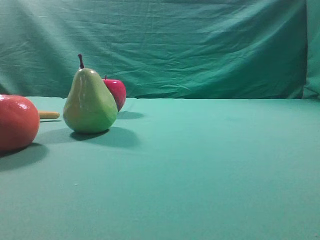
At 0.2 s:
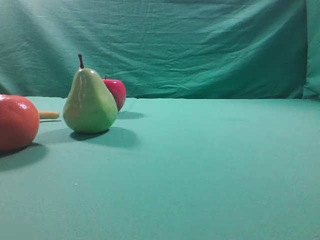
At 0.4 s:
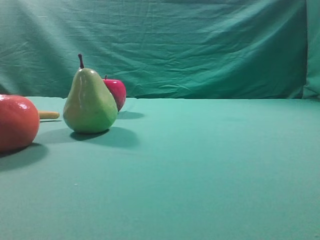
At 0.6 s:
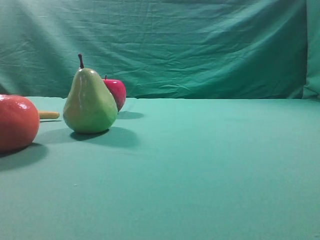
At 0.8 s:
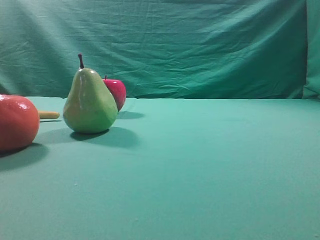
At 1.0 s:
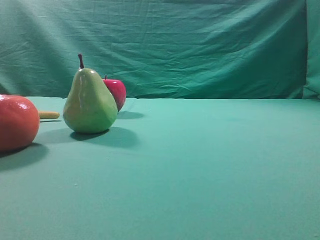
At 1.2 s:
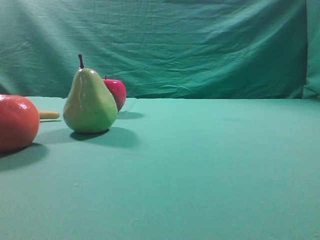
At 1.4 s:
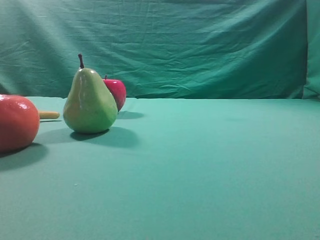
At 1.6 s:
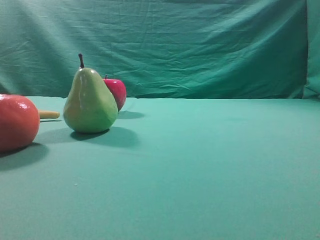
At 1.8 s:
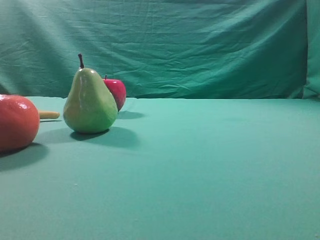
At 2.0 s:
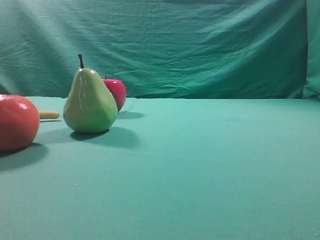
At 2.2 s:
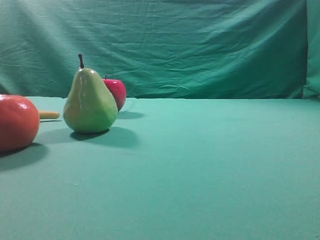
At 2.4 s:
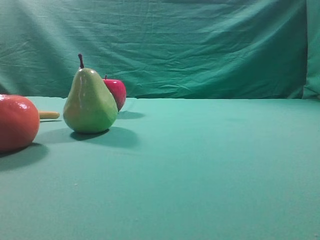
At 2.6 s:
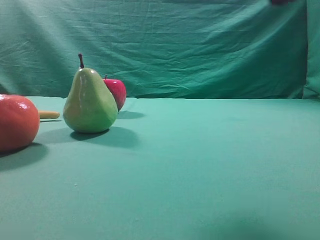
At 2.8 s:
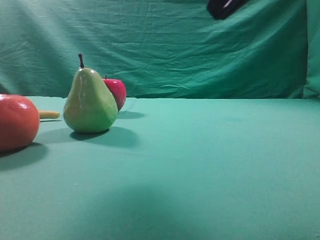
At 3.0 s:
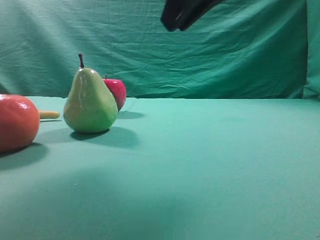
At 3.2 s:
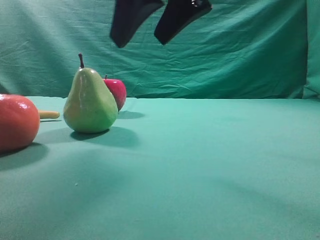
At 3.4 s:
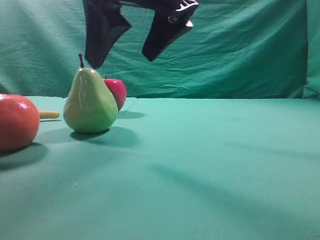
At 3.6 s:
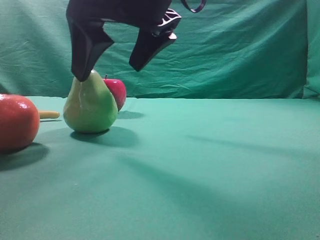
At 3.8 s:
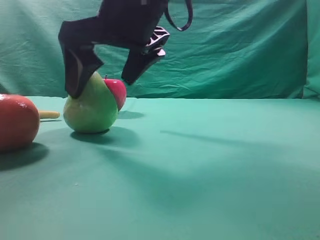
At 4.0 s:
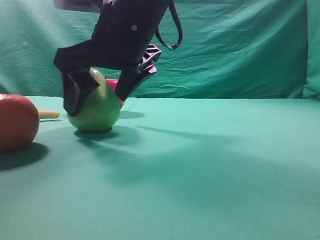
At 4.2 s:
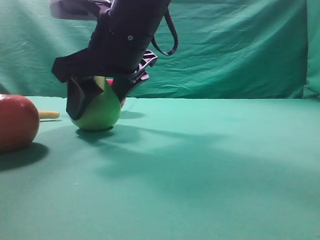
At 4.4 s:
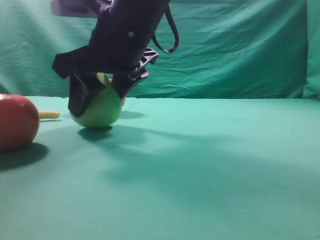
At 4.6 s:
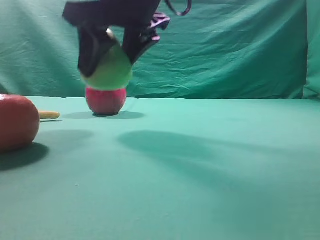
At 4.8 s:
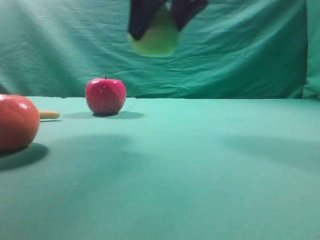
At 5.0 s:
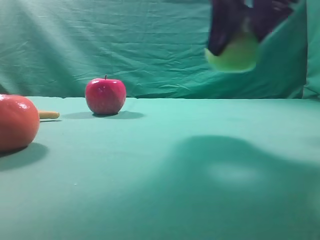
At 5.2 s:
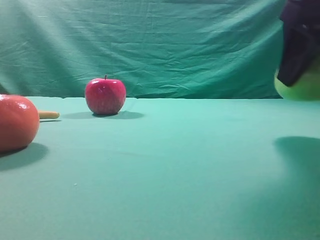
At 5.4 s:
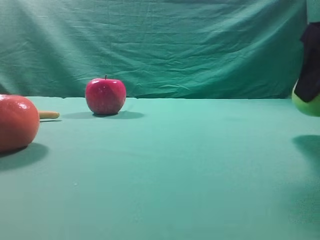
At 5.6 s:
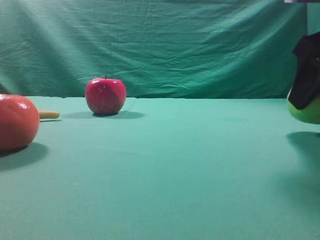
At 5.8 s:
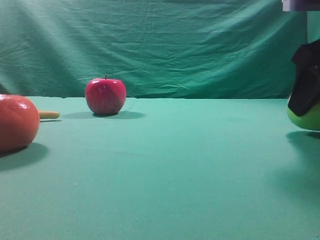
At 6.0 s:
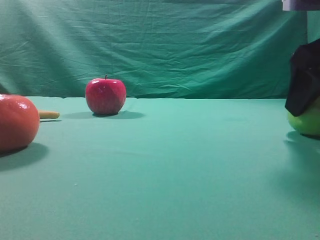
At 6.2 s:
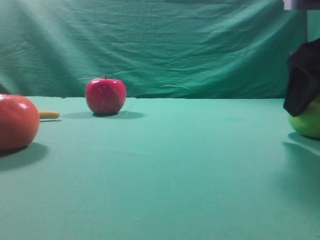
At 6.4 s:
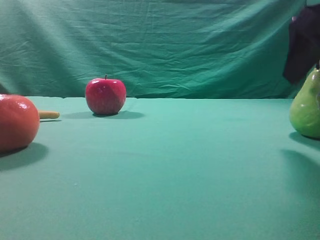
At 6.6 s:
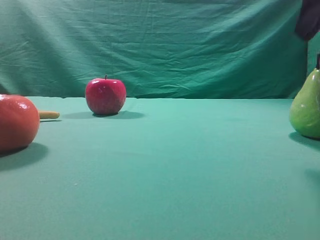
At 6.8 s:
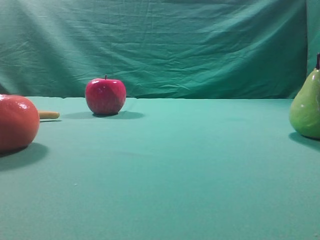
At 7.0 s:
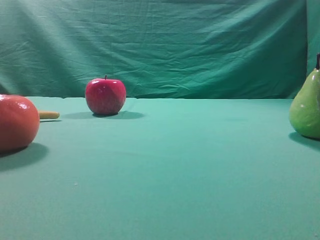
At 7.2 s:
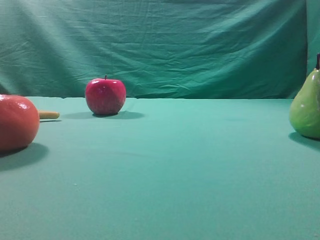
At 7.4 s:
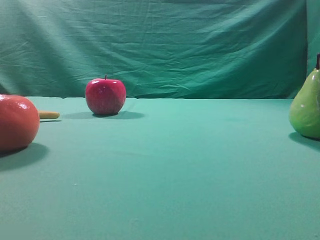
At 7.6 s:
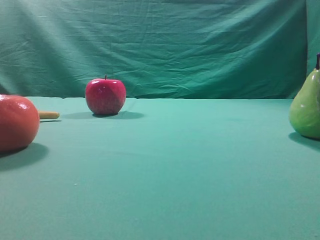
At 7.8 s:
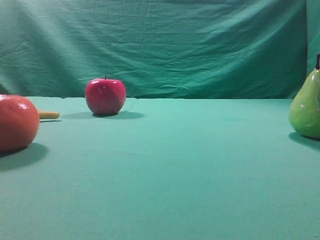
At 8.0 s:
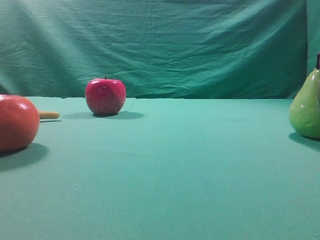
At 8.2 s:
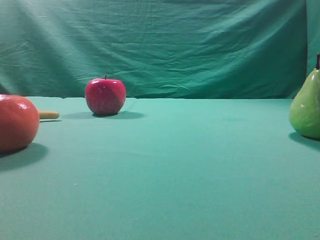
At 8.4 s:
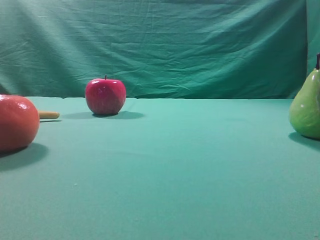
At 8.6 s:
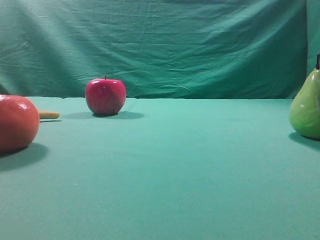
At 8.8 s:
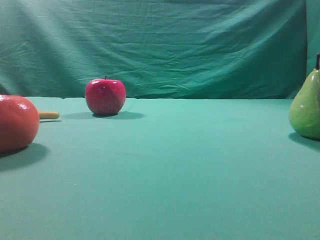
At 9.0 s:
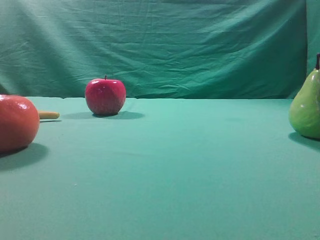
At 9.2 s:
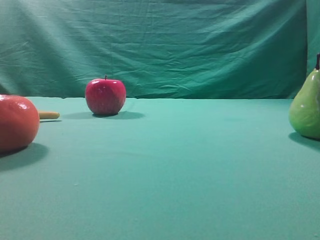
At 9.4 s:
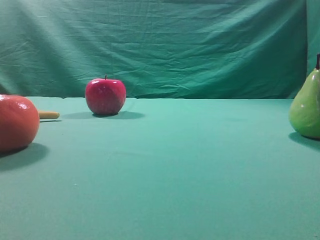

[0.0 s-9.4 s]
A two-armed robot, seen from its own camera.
Task of the whole recording: Grasp the pear and place it on one side of the table.
Step, 0.0 to 4.4 s: Grasp the high-fiber fruit.
Step, 4.6 to 6.4 s: Place it on the right side of the table.
